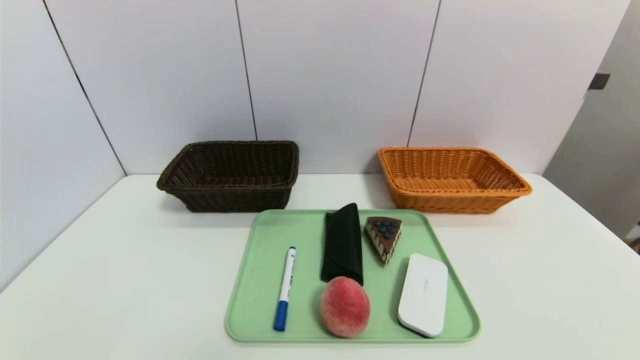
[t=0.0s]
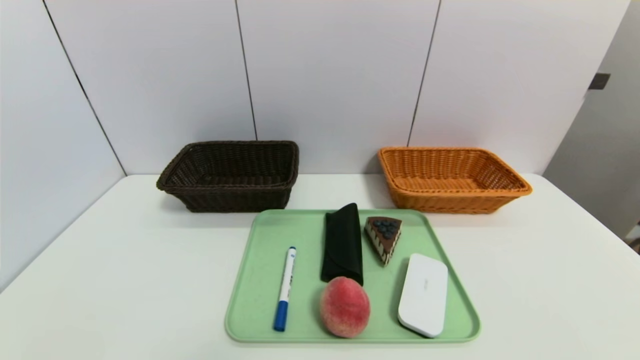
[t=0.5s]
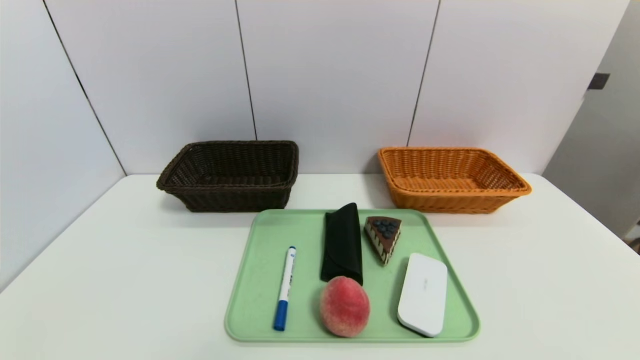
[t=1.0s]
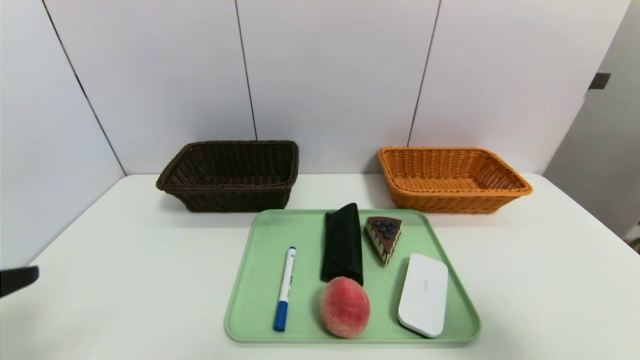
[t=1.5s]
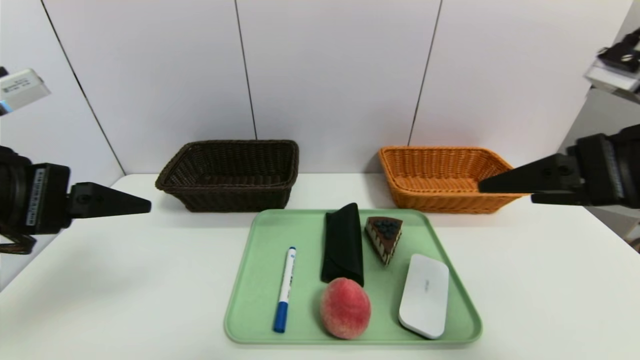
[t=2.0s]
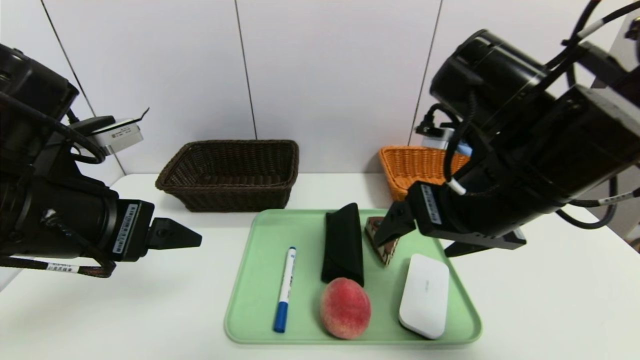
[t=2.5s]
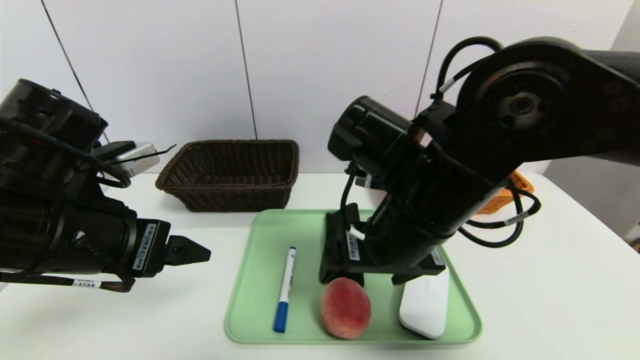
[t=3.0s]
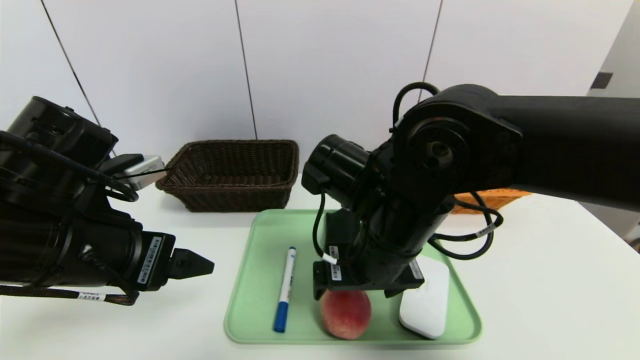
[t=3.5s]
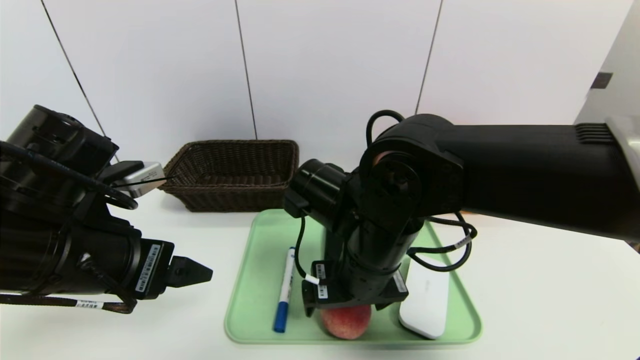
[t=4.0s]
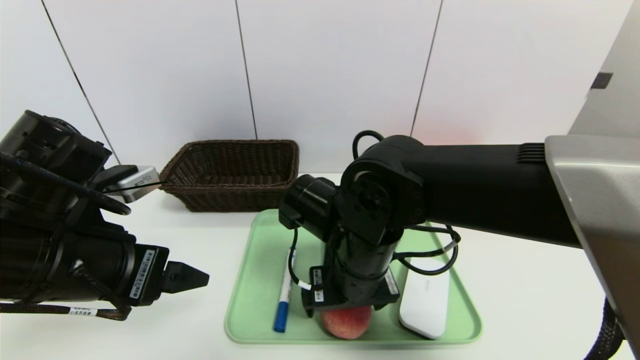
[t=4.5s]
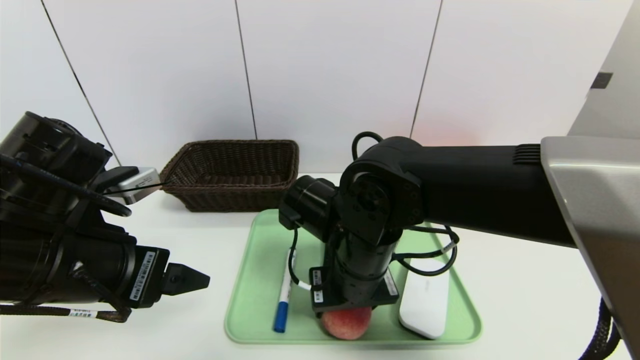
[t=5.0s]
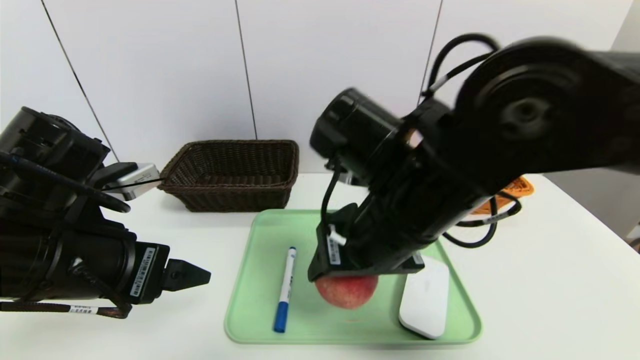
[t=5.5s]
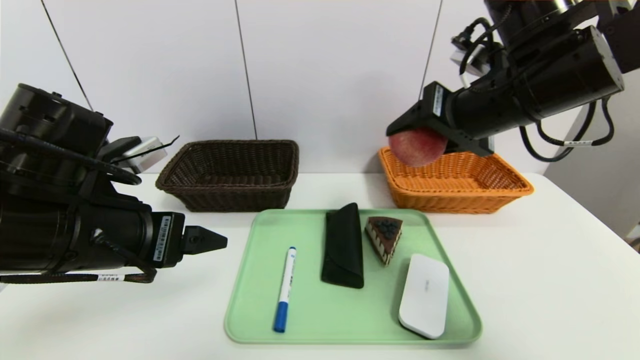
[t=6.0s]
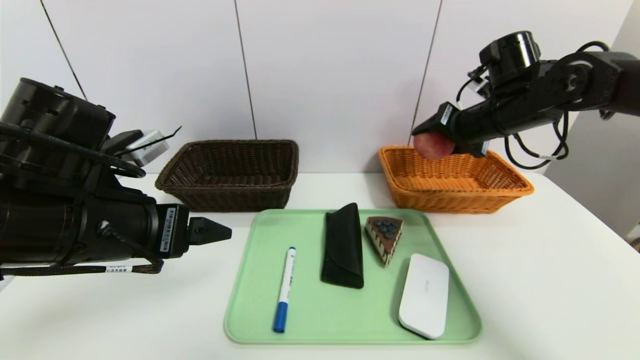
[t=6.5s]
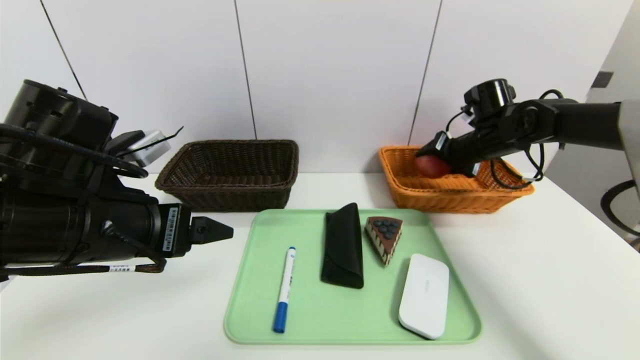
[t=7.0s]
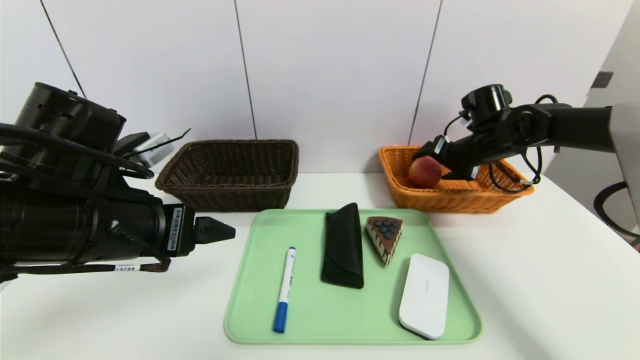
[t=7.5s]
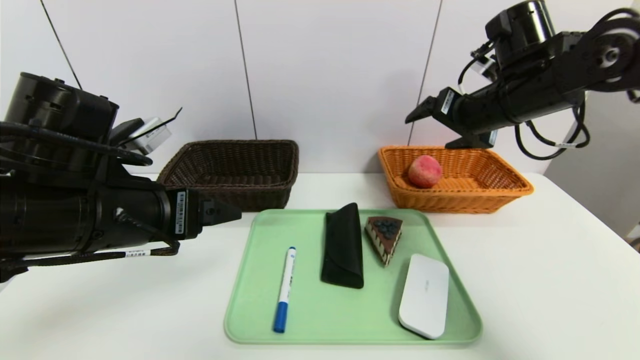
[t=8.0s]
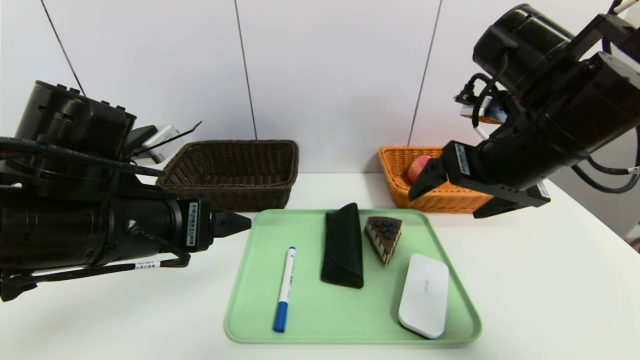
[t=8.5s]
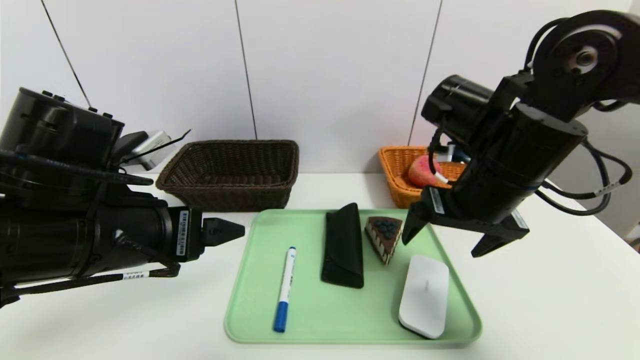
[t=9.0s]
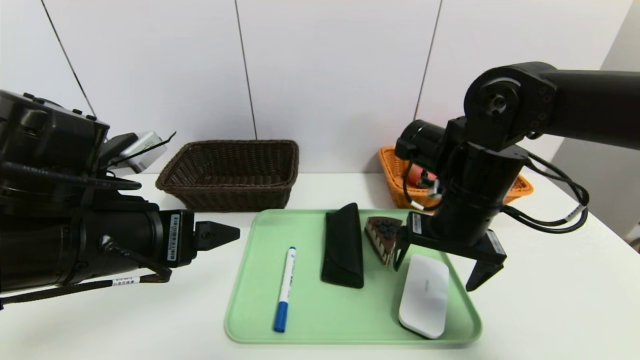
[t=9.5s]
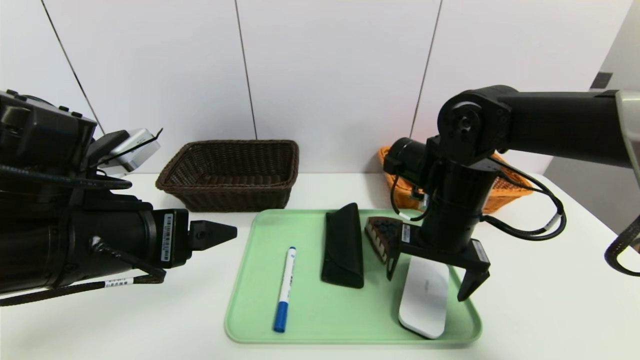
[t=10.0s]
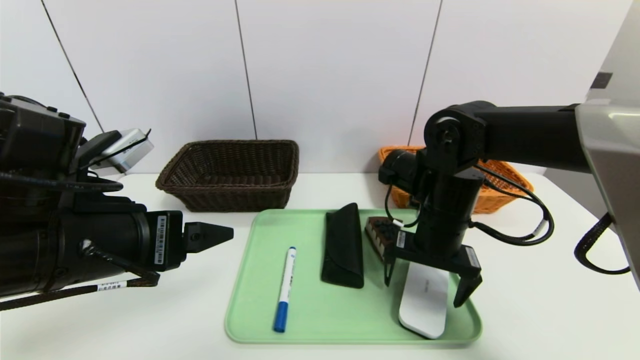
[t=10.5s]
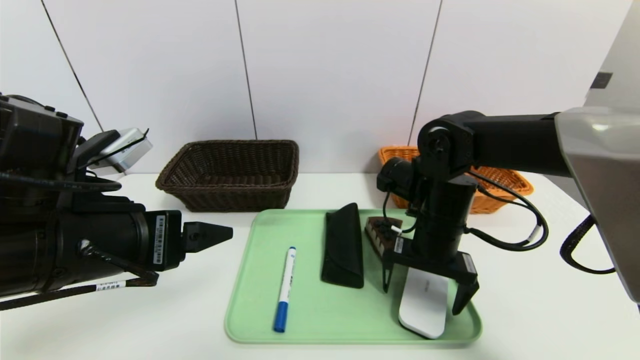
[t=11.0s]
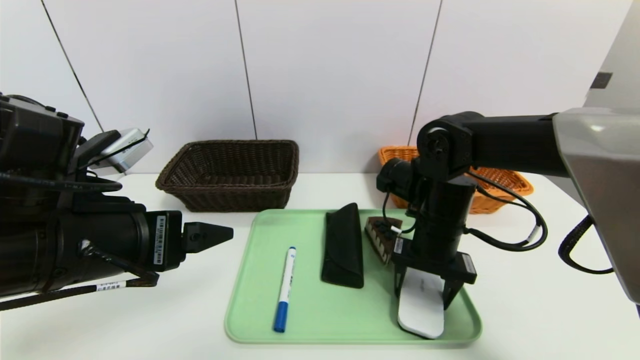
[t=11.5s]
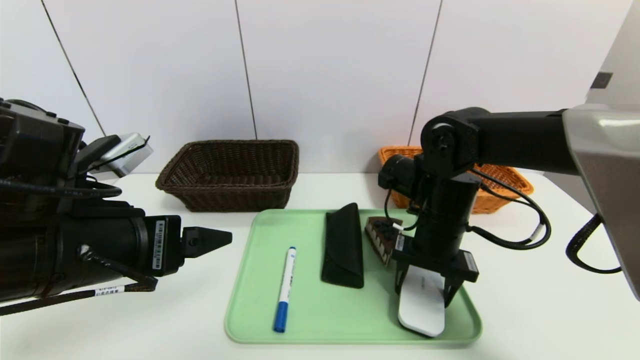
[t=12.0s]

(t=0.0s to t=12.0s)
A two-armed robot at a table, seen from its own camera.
Task of the whole recording: place the food in the right basket with the right gripper, and place the non food items in the left basket with the left gripper.
Step, t=0.0s - t=7.5s: Grasp the peach and put it in the right basket.
t=0.0s - t=2.0s: Both grippers travel together upward and forward, roughly 30 cm.
t=2.0s - t=4.0s: The right gripper moves to the left and downward, roughly 25 cm. The left gripper goes some 5 cm downward.
t=4.0s - t=6.0s: The right gripper shifts approximately 20 cm to the right, upward and forward, and closes.
t=6.0s - t=8.0s: The right gripper moves approximately 15 cm forward and comes back, and opens its fingers.
t=8.0s - t=10.0s: The right gripper moves downward and to the left, roughly 15 cm.
t=10.0s - t=12.0s: The right gripper closes.

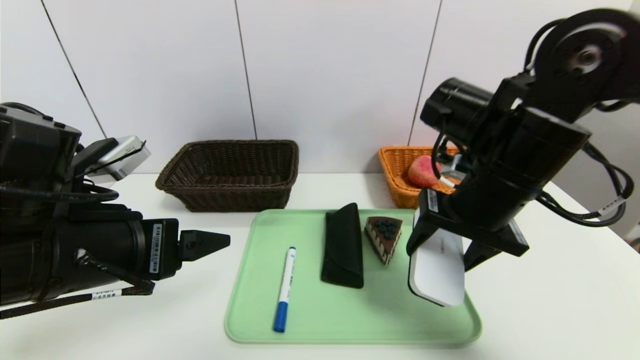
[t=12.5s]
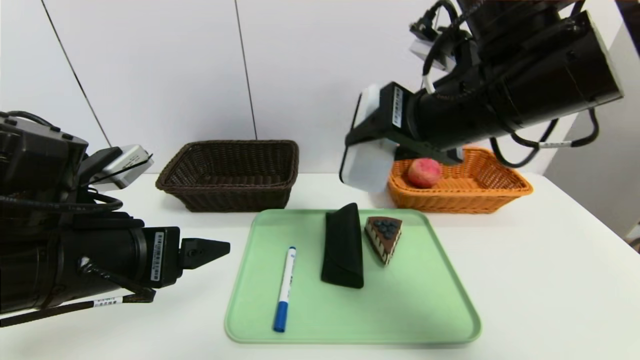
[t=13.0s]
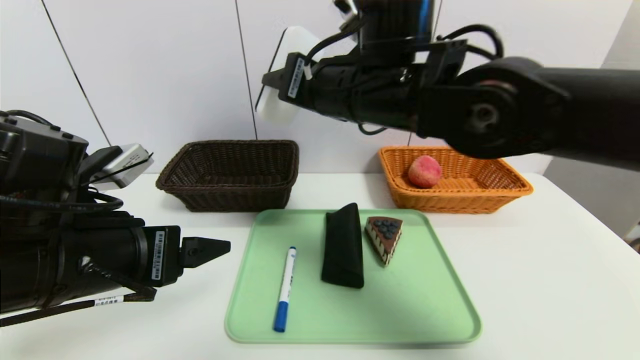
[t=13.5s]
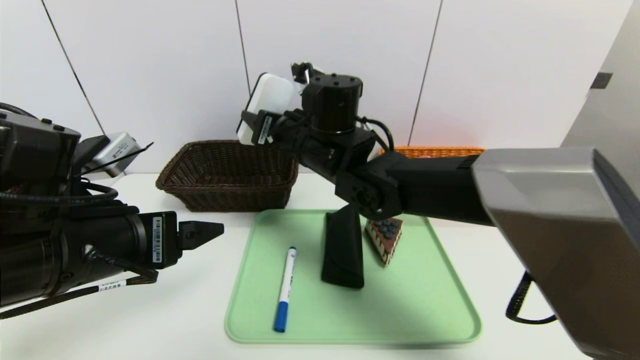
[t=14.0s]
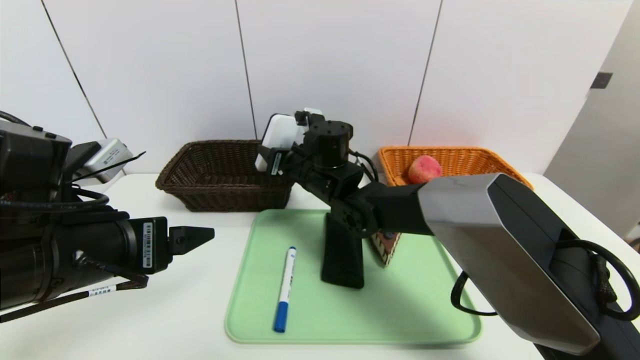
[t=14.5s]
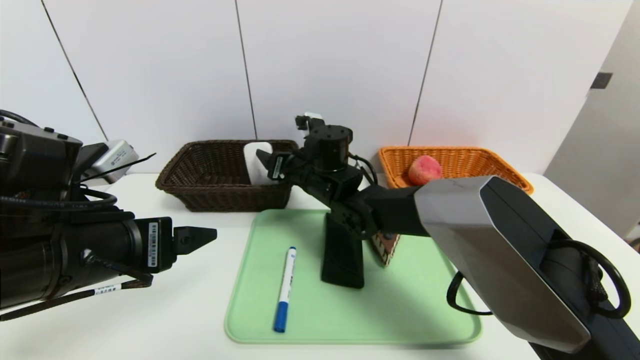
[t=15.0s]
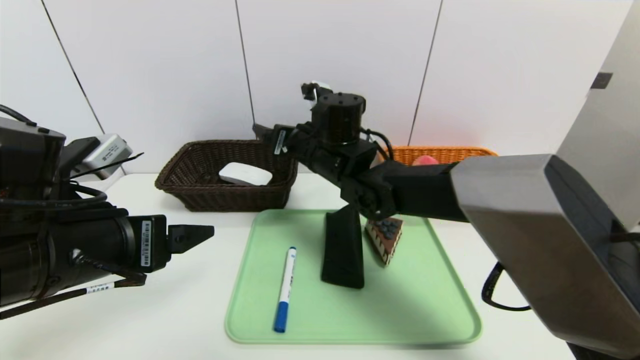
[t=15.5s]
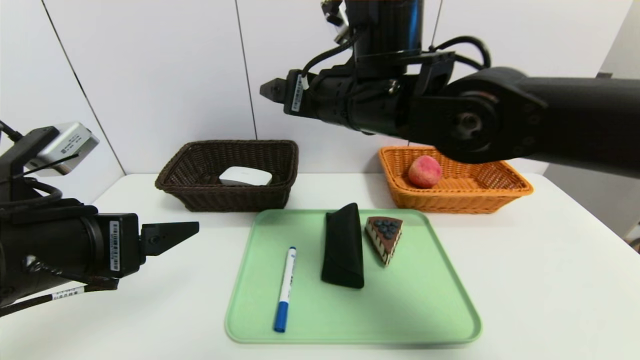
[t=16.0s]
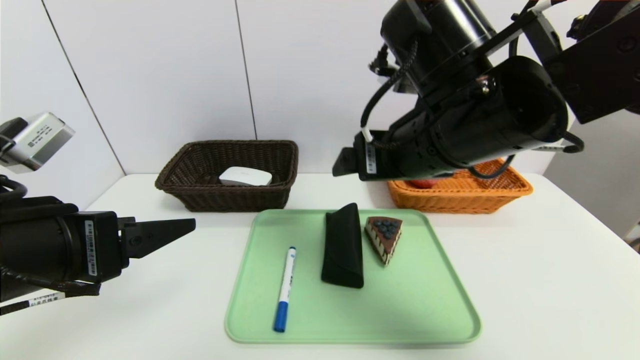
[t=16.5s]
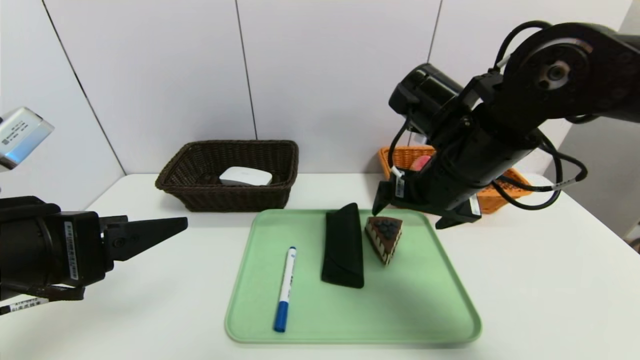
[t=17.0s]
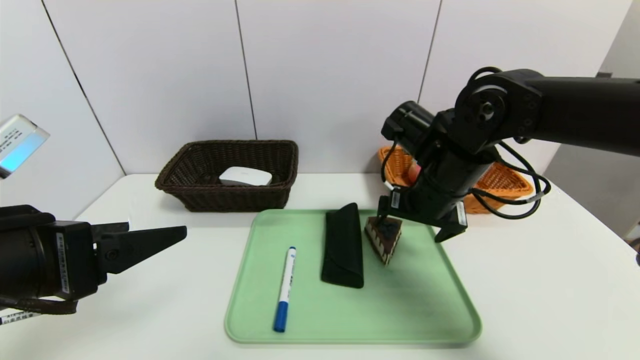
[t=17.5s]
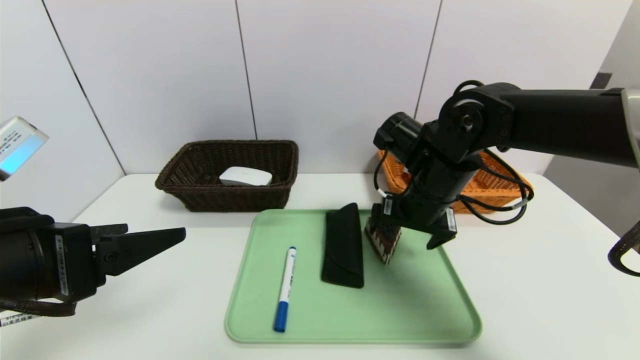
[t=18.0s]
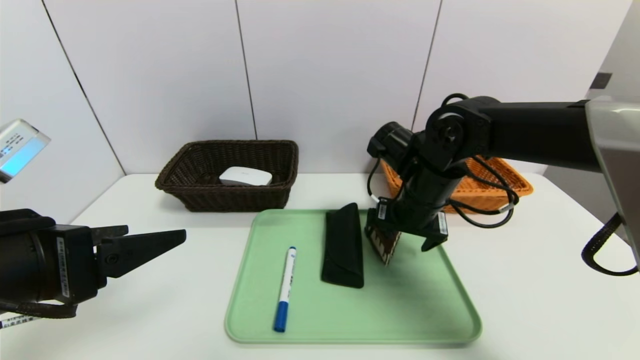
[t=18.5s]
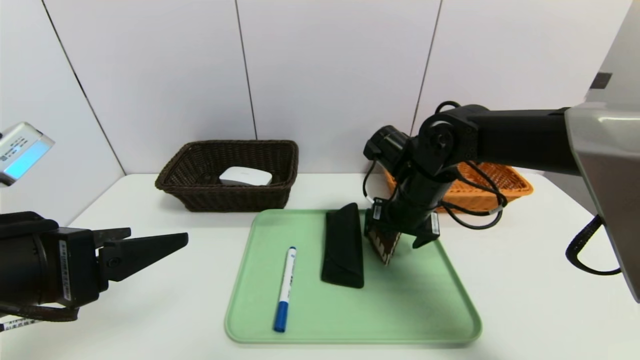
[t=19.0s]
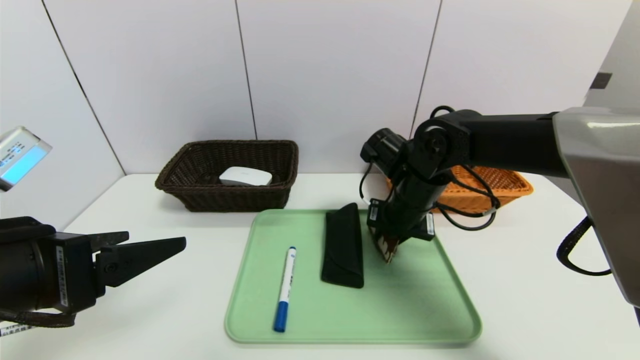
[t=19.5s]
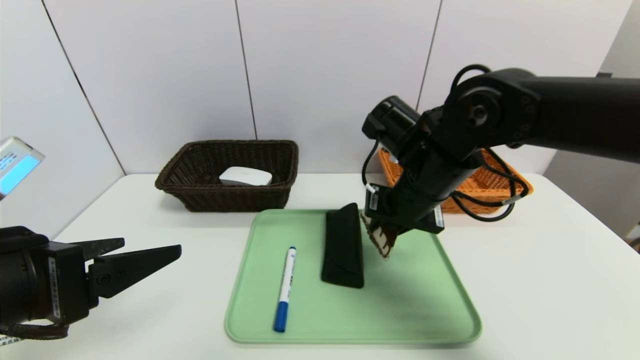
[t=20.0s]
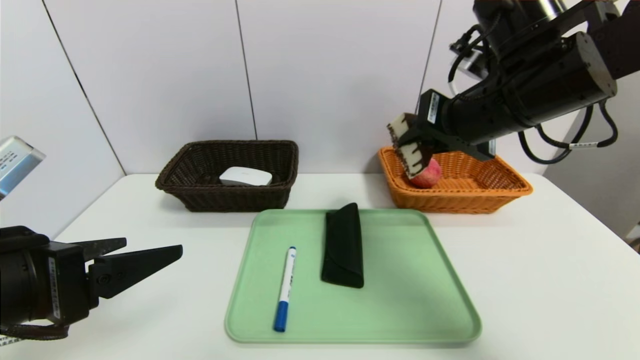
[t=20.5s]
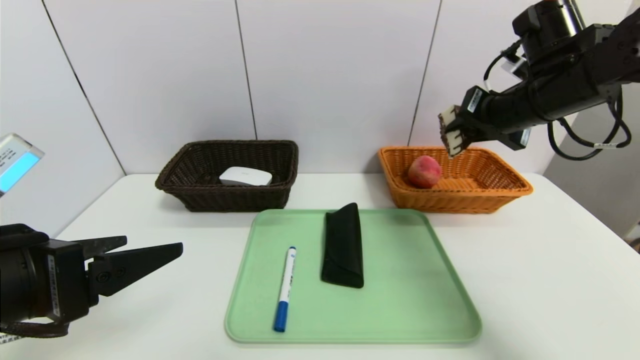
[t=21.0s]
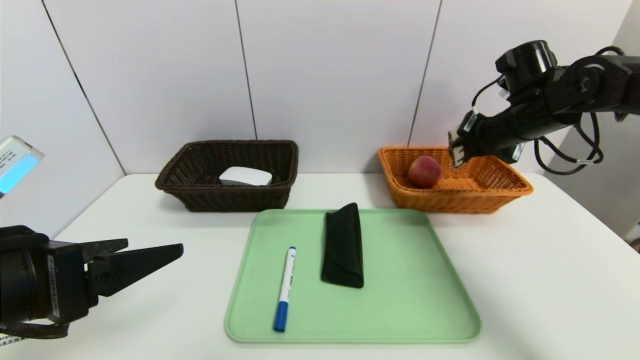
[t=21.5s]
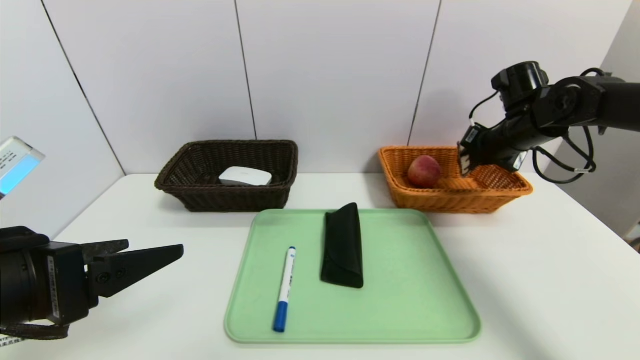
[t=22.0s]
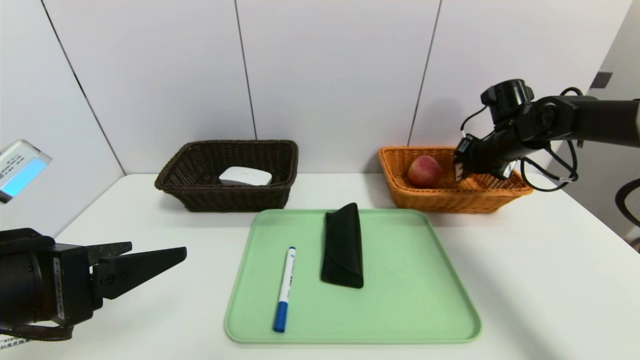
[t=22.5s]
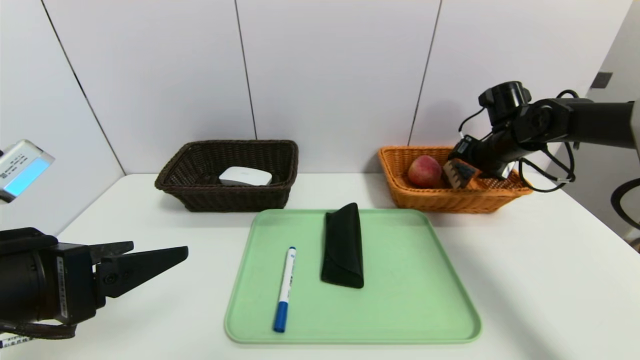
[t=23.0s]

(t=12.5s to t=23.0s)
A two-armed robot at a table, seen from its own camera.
Task of the whole recording: place the food in the right basket with the right gripper, and place the non food items in the left basket with the left gripper.
t=12.5s - t=14.5s: The right gripper shifts some 25 cm to the left, forward and downward.
t=14.5s - t=16.5s: The right gripper is displaced backward, upward and to the right by some 25 cm, and opens up.
t=16.5s - t=19.0s: The right gripper is displaced downward and forward by approximately 15 cm.
t=19.0s - t=21.0s: The right gripper shifts roughly 20 cm to the right and upward, and closes its fingers.
t=21.0s - t=23.0s: The right gripper shifts approximately 15 cm downward, forward and to the right, and opens up.
